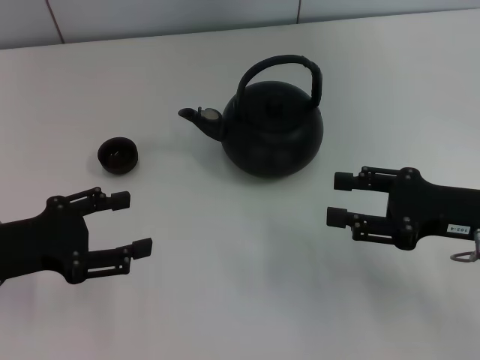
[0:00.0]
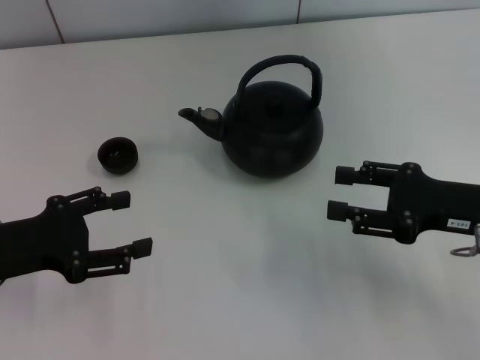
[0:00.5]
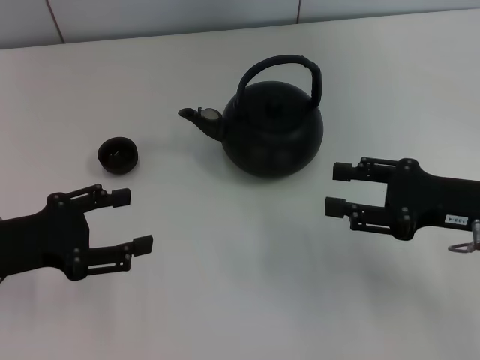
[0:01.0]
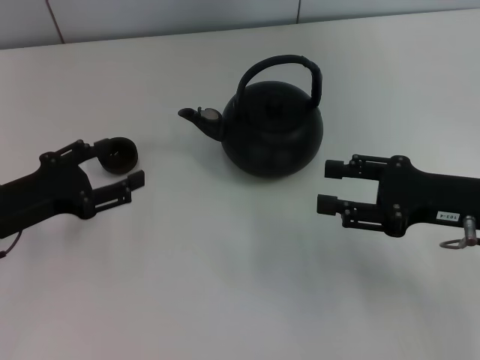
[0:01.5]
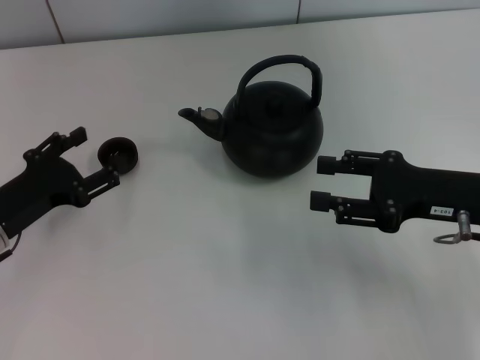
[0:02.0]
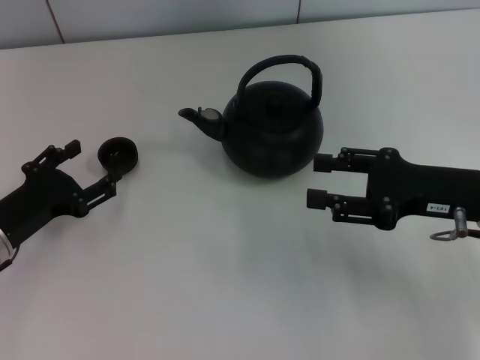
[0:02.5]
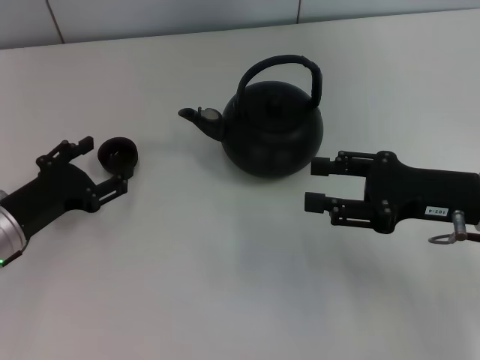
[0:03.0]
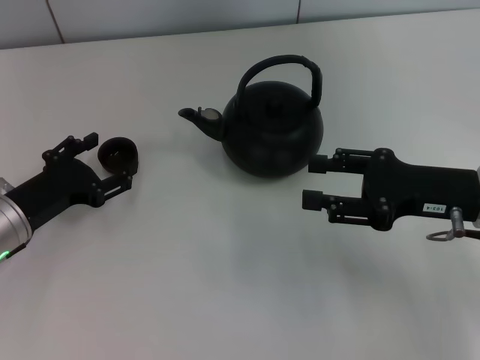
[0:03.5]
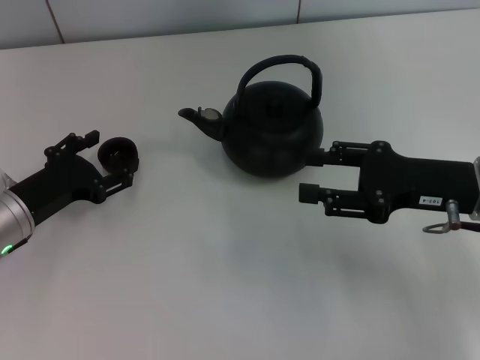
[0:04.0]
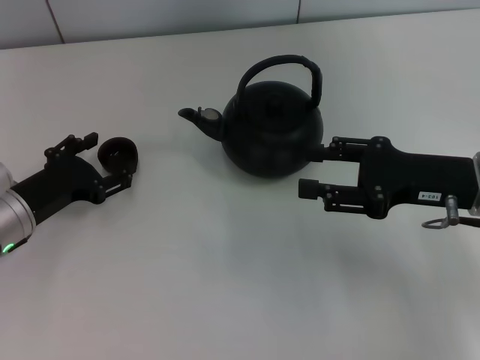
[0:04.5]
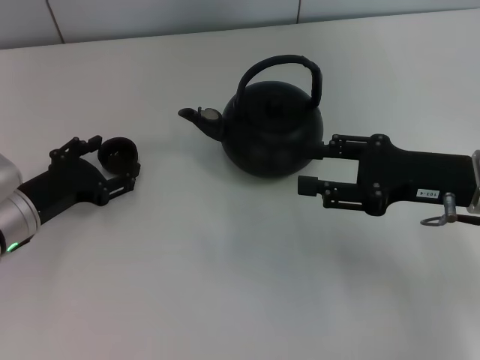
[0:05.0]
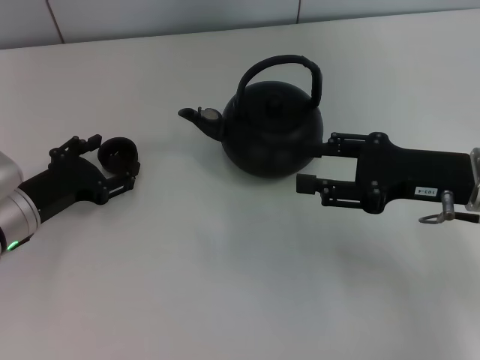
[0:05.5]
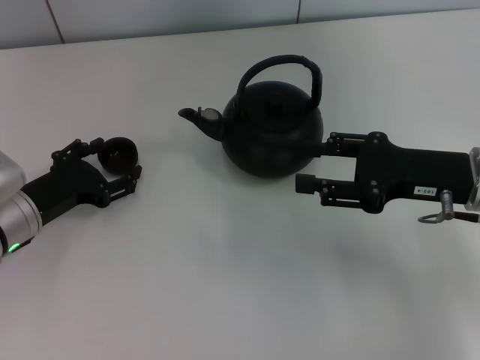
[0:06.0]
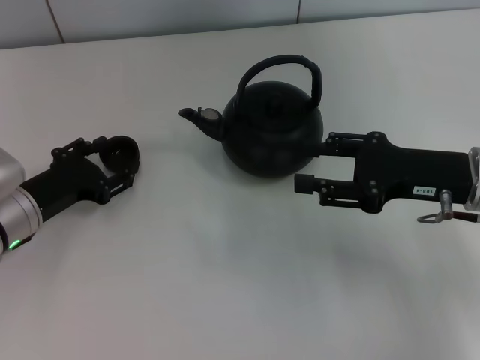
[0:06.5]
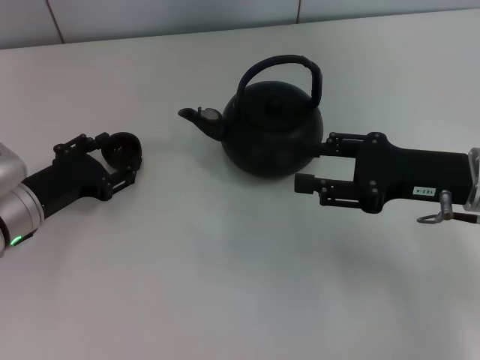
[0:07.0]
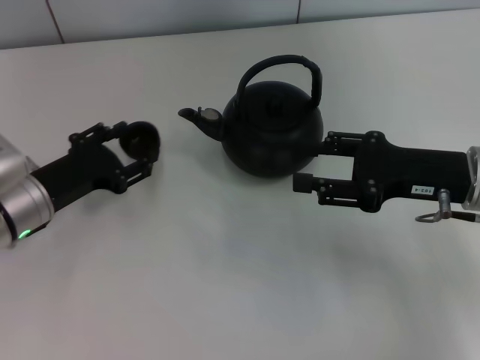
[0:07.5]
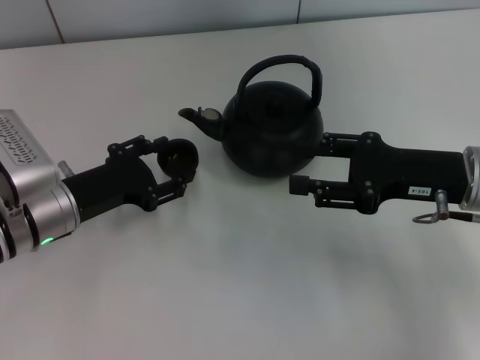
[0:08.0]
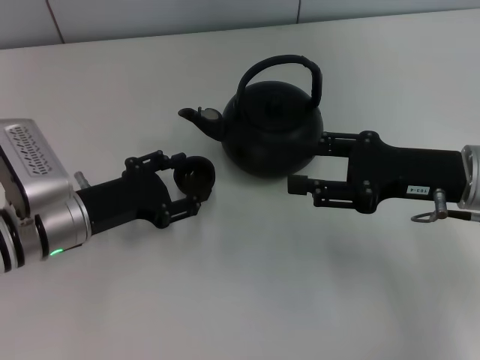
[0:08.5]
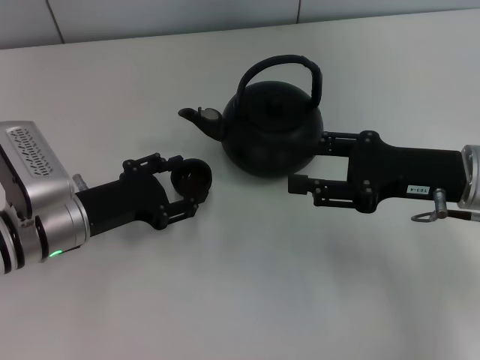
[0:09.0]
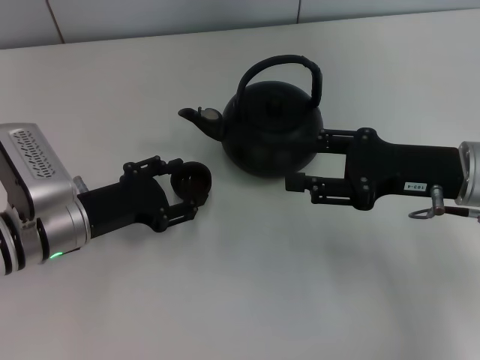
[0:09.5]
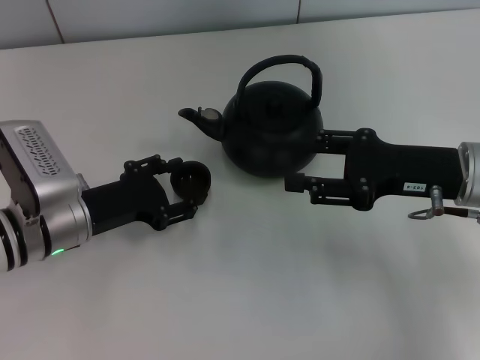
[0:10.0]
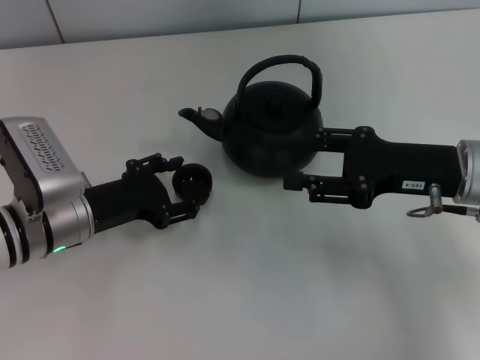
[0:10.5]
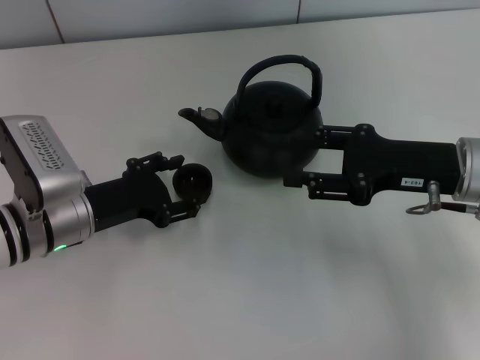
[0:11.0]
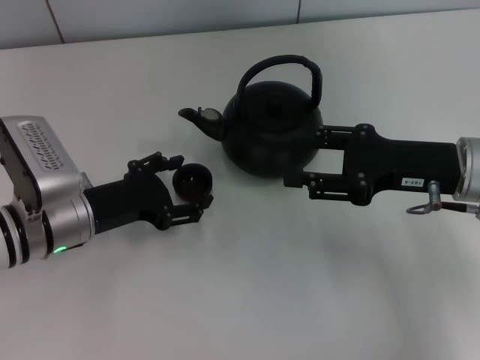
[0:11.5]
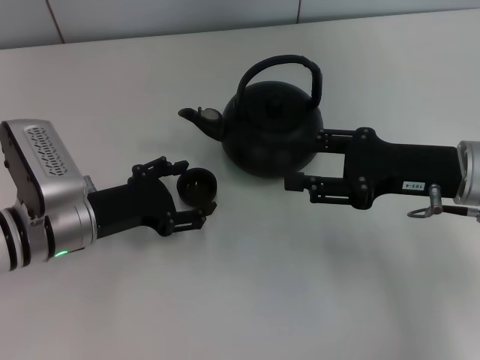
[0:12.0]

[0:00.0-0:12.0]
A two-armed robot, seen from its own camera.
Task of the whole recording: Grasp the handle of the teapot with one hand and pour tea into the teacup.
Step, 0:00.0 to 0:07.5: Pick up the teacup with the left gripper.
0:00.0 to 0:02.0: The left gripper shifts approximately 5 cm downward.
0:02.0 to 0:04.0: The grippers make only small movements.
0:04.0 to 0:06.0: Neither gripper changes place.
0:06.0 to 0:08.0: The left gripper closes its fingers.
0:08.0 to 0:10.0: The grippers stay close to where they were, moving slightly.
0:10.0 to 0:12.0: The left gripper opens up.

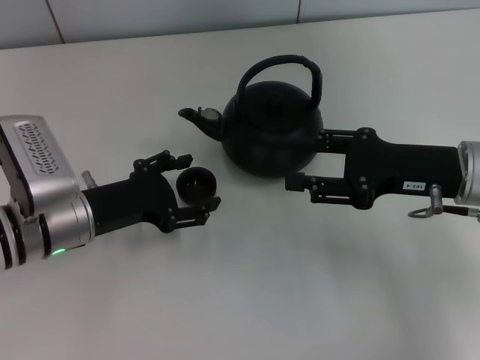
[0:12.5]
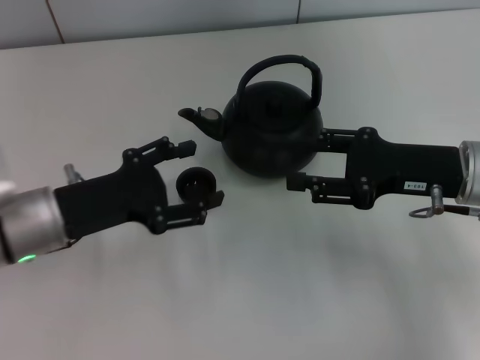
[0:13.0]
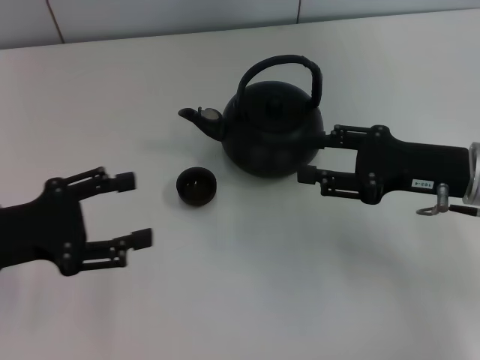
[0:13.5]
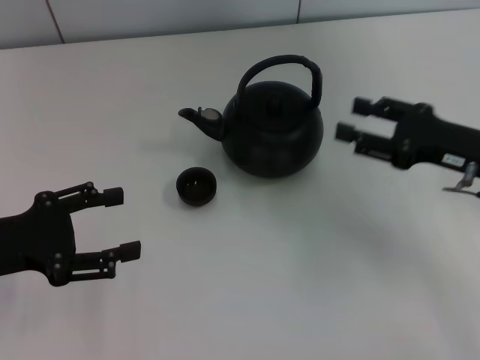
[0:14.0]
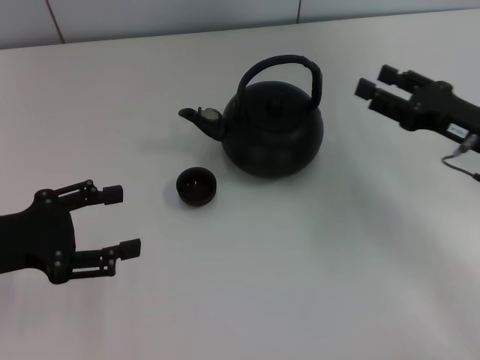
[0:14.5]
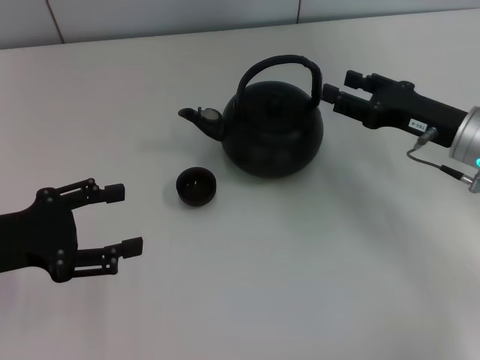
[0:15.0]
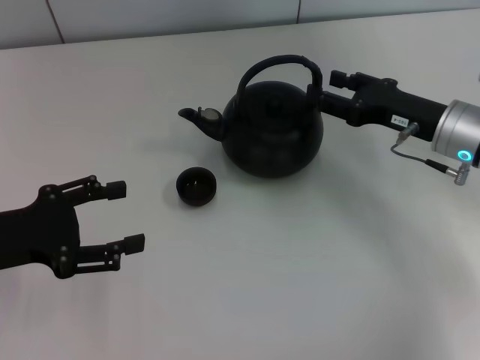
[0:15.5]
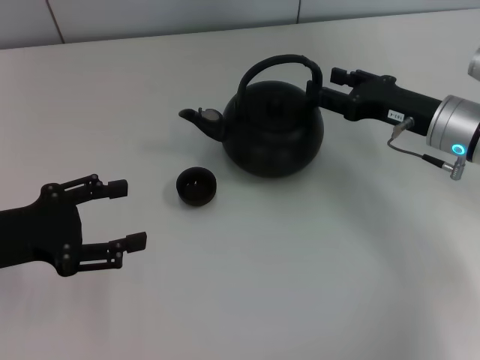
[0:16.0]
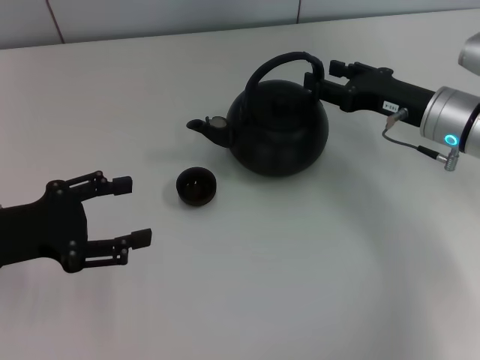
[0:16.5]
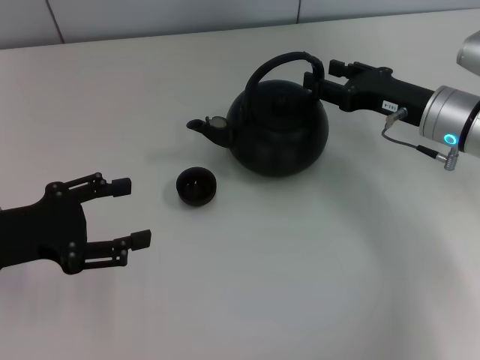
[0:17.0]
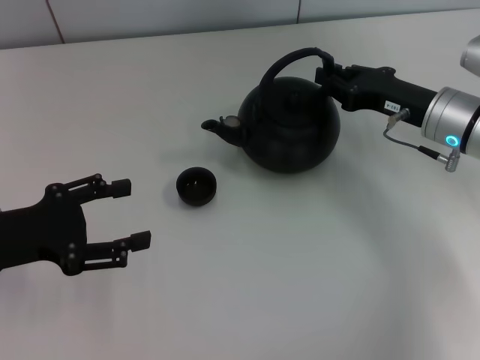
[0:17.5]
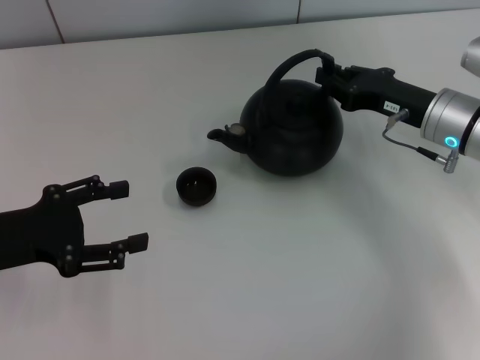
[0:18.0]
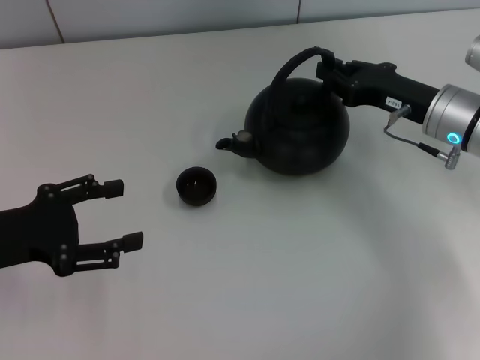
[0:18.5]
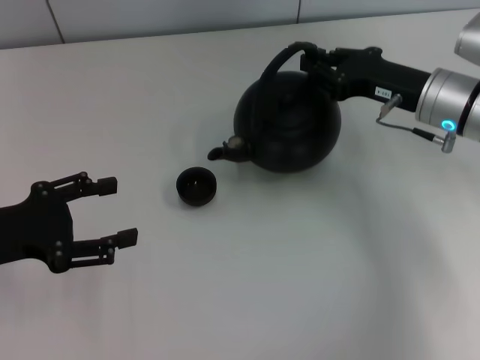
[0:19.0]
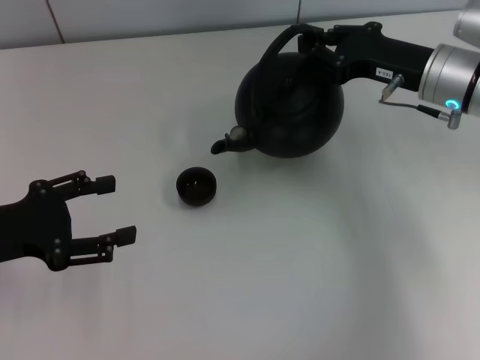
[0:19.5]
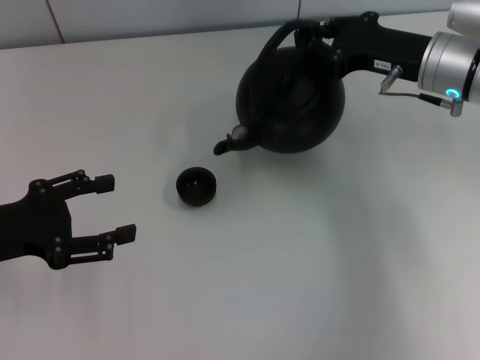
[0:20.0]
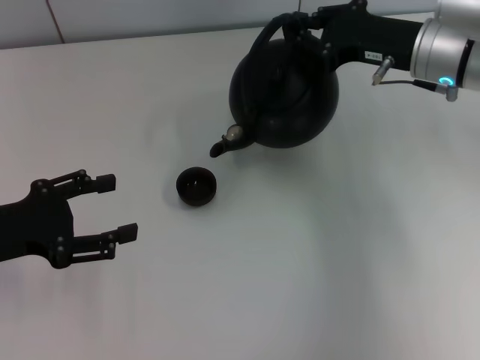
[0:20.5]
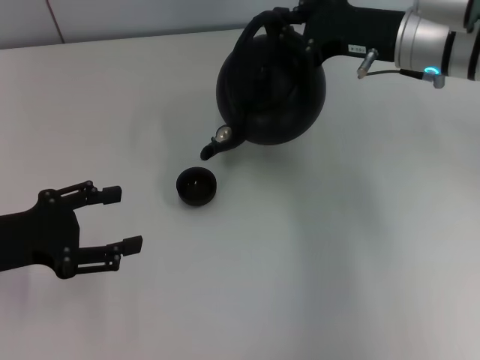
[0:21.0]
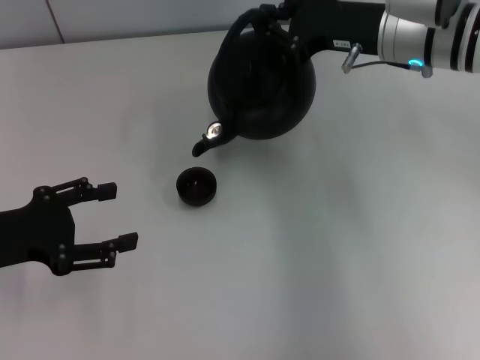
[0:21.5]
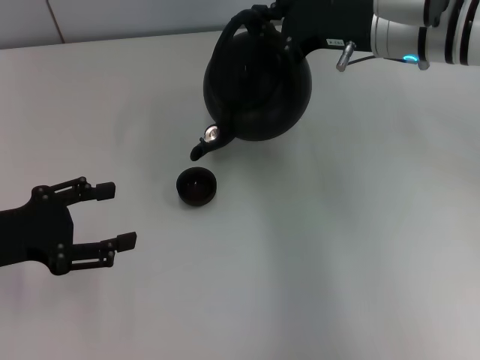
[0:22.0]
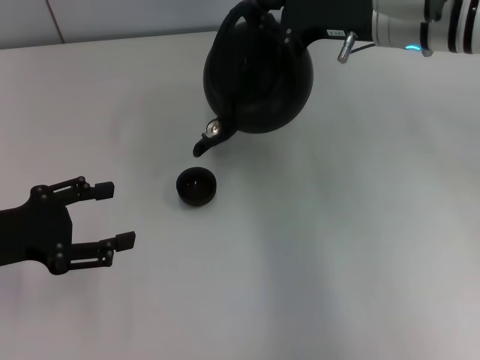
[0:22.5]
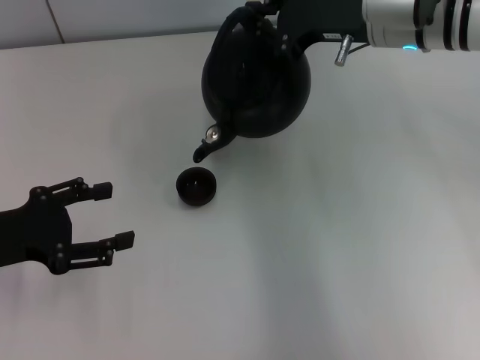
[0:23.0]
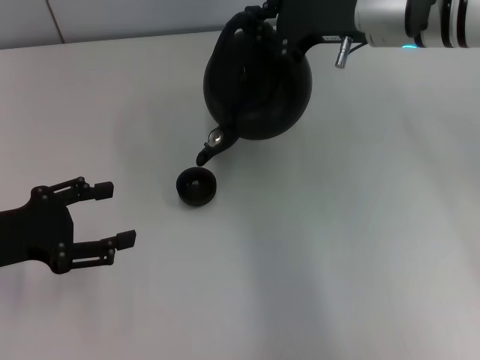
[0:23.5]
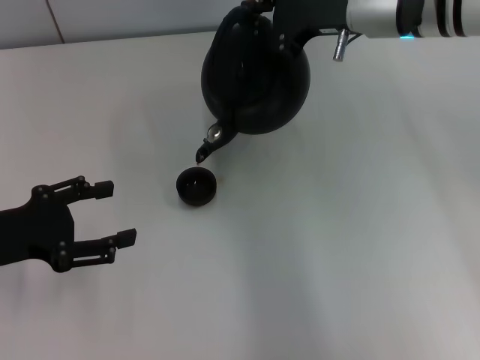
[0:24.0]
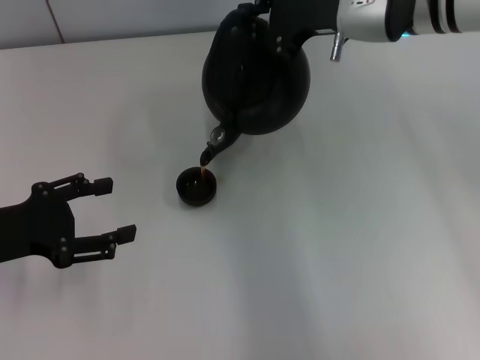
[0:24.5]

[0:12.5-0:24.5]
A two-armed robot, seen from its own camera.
Task of the whole recording: Grasp the handle of the teapot with one hand and pour tea into the teacup.
Step, 0:13.5 to 0:18.5: Pick up the teapot with the right gripper.
0:12.5 to 0:14.5: The left gripper moves to the left and upward, some 10 cm. The right gripper ends up approximately 5 cm from where it was.
0:14.5 to 0:16.5: The right gripper shifts approximately 5 cm forward.
0:16.5 to 0:18.5: The right gripper closes its fingers.
0:18.5 to 0:20.5: The right gripper moves upward, about 5 cm.
0:20.5 to 0:22.5: The right gripper changes place by roughly 5 cm.
0:22.5 to 0:24.5: The grippers stay close to where they were, moving slightly.

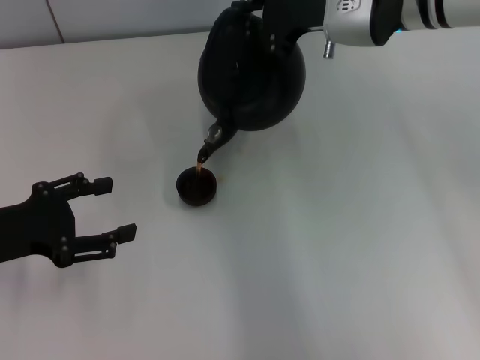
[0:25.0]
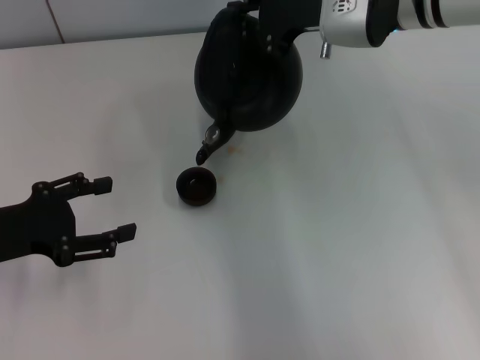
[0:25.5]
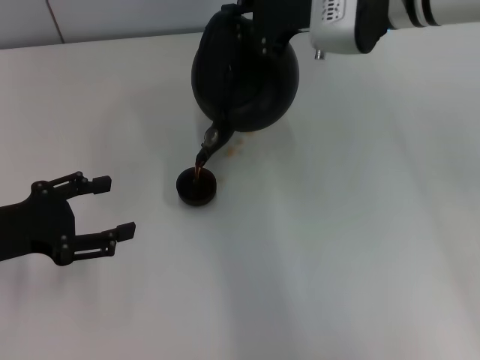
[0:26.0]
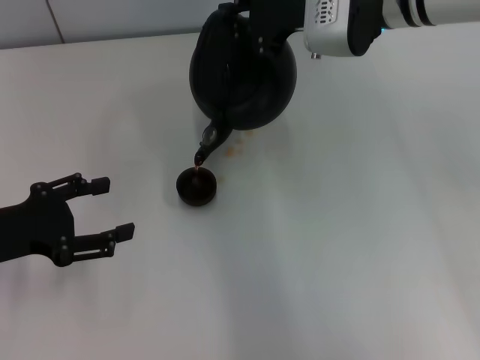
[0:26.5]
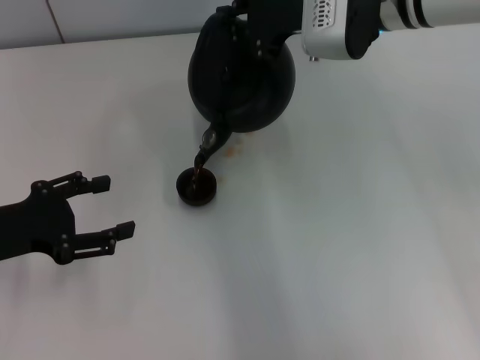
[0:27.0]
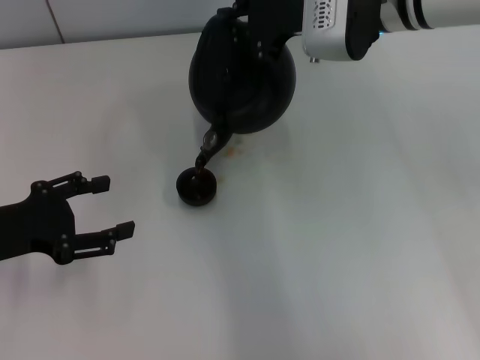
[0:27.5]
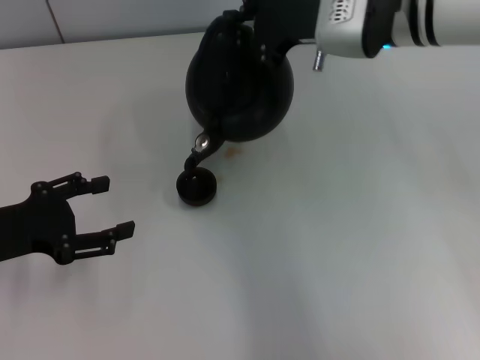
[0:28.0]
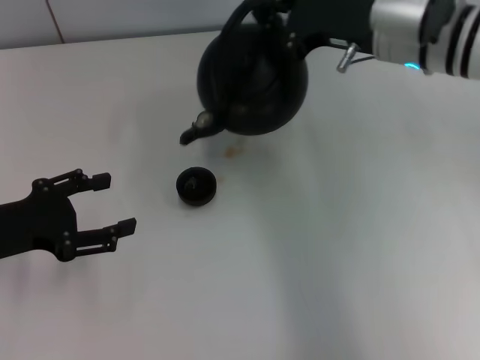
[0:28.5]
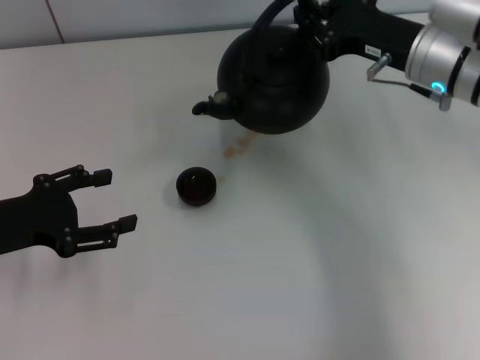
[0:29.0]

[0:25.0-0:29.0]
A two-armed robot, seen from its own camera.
Task of the whole recording: Grasp the handle of the teapot with one hand and pour tea into the teacup.
0:25.0 to 0:27.0: The grippers stay close to where they were, moving slightly.
0:27.0 to 0:29.0: The right gripper shifts roughly 10 cm to the right and downward.
